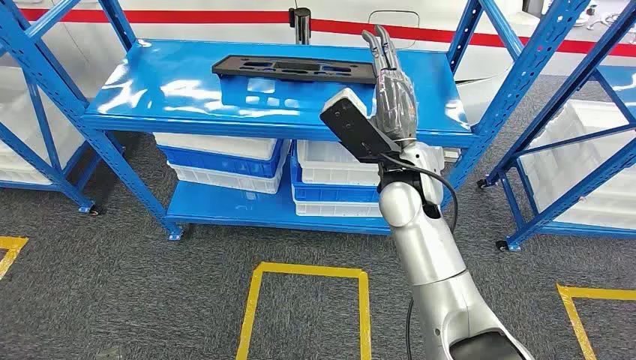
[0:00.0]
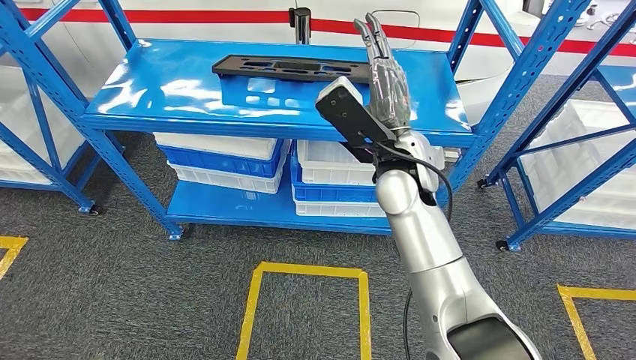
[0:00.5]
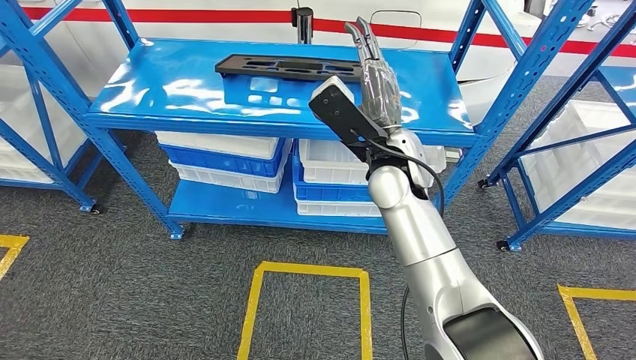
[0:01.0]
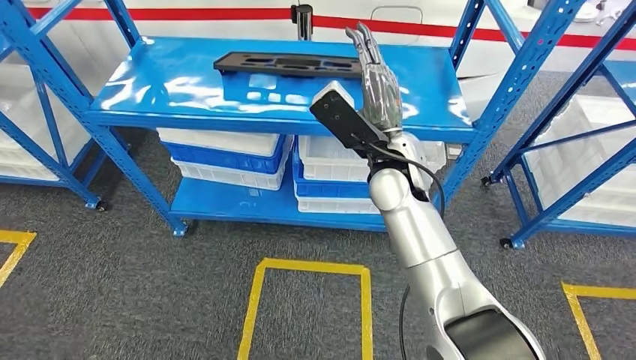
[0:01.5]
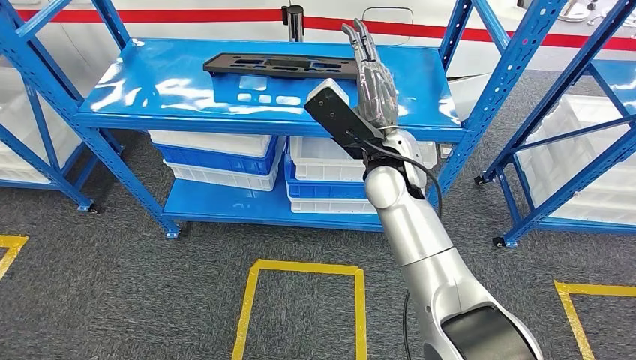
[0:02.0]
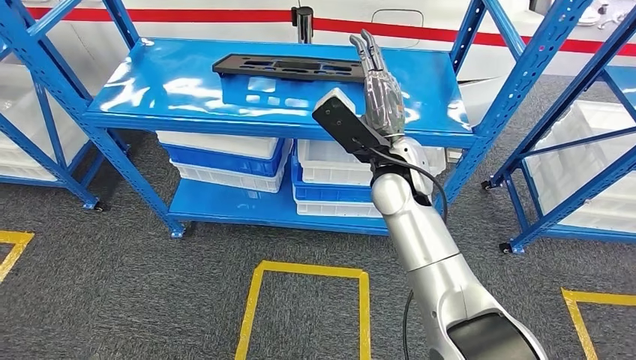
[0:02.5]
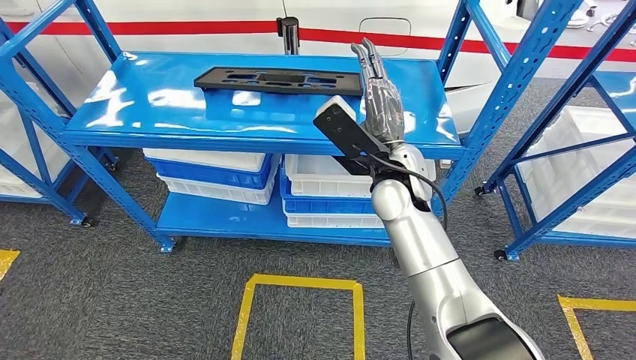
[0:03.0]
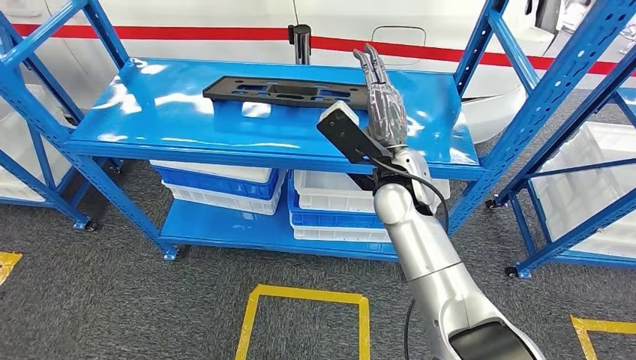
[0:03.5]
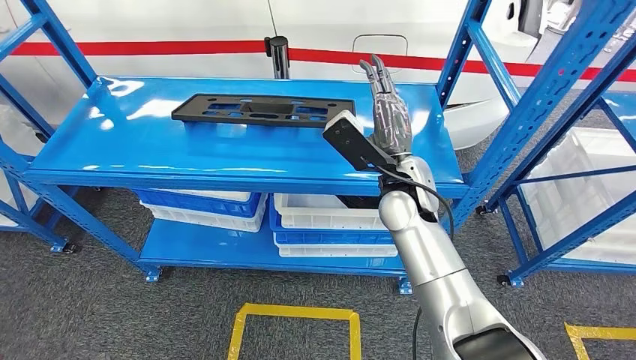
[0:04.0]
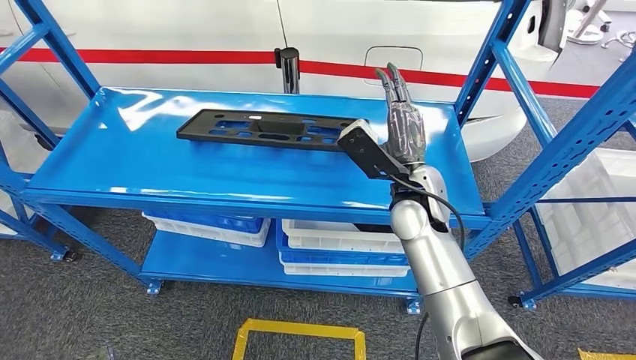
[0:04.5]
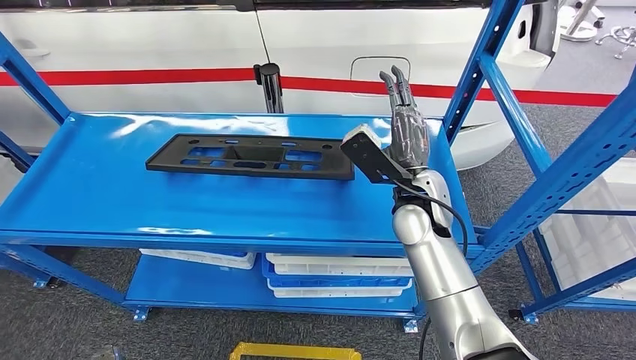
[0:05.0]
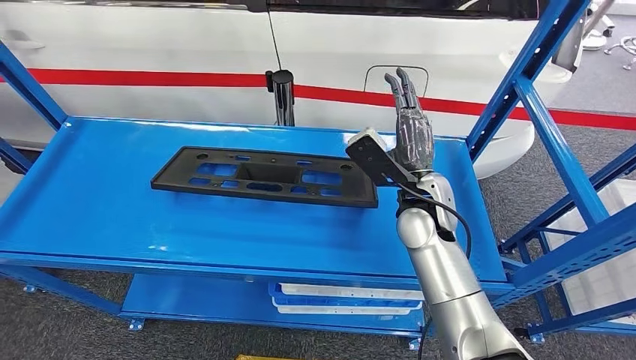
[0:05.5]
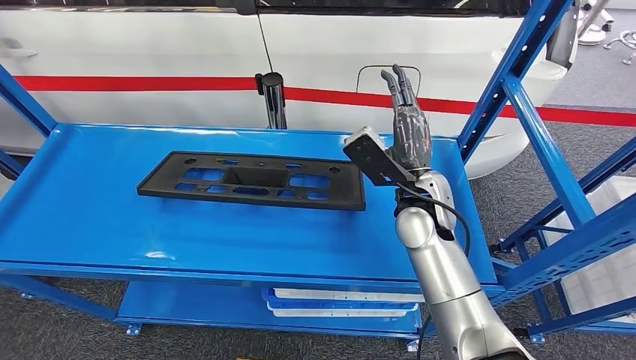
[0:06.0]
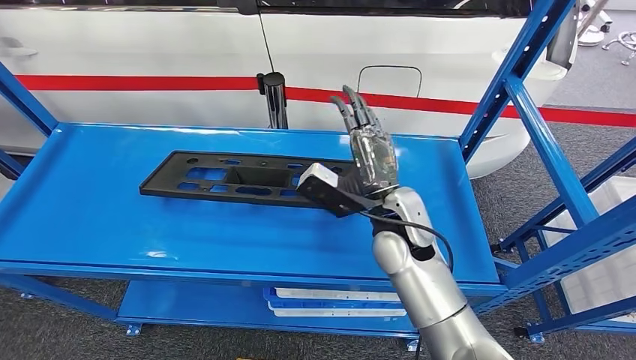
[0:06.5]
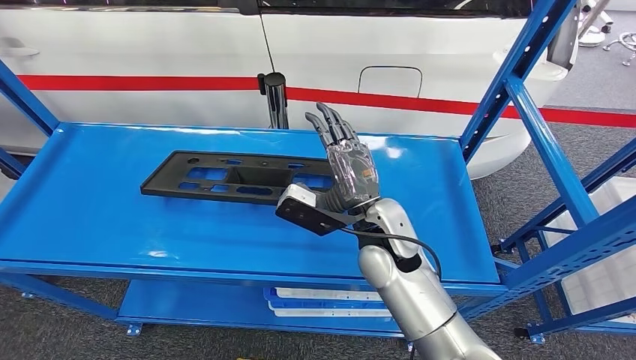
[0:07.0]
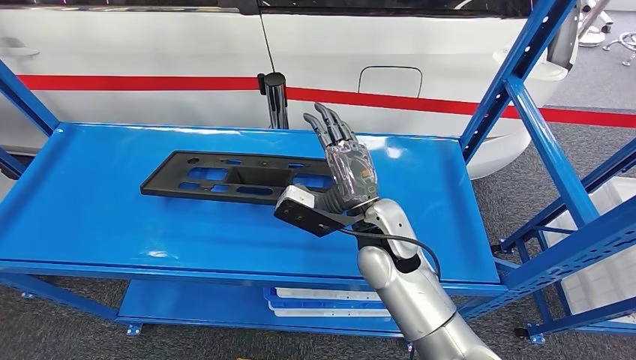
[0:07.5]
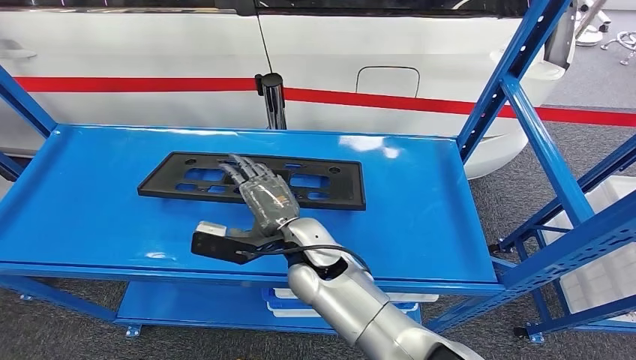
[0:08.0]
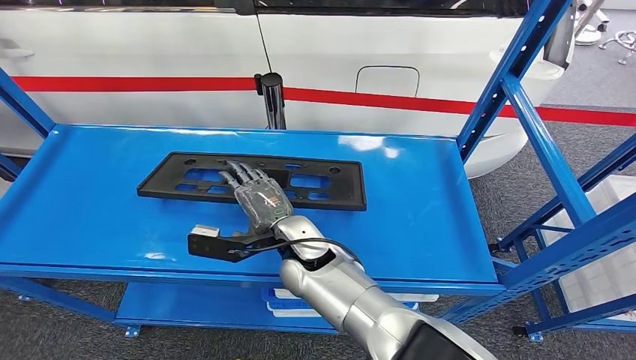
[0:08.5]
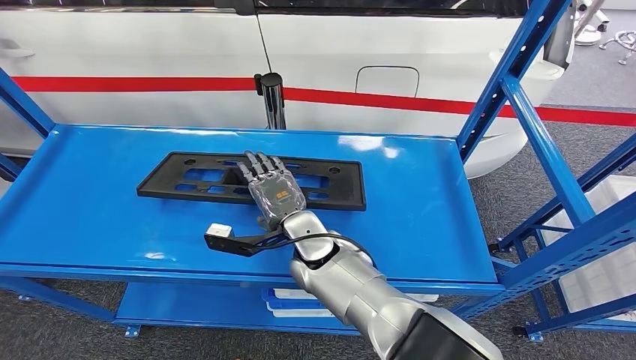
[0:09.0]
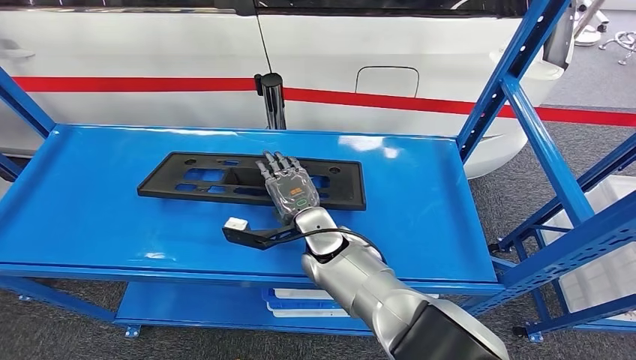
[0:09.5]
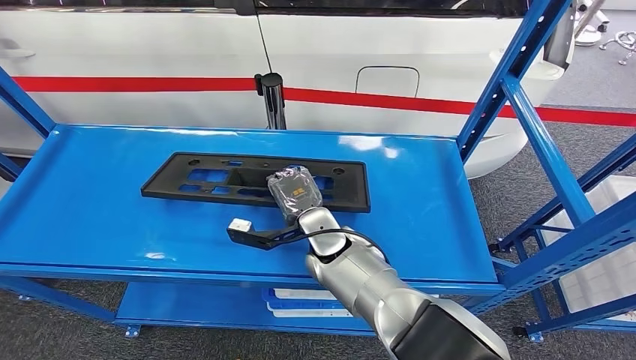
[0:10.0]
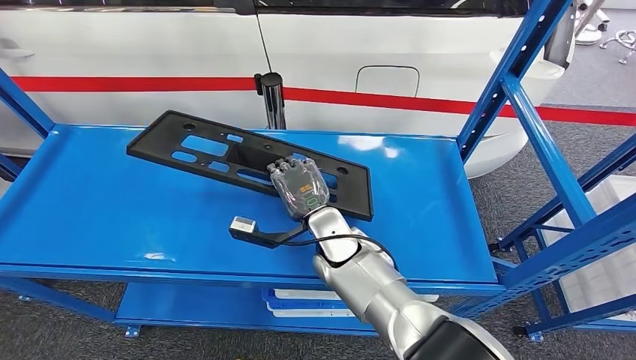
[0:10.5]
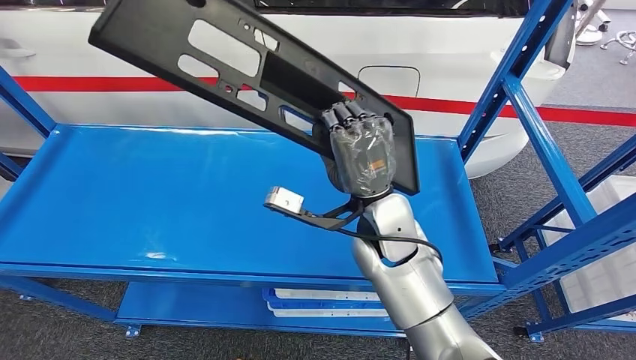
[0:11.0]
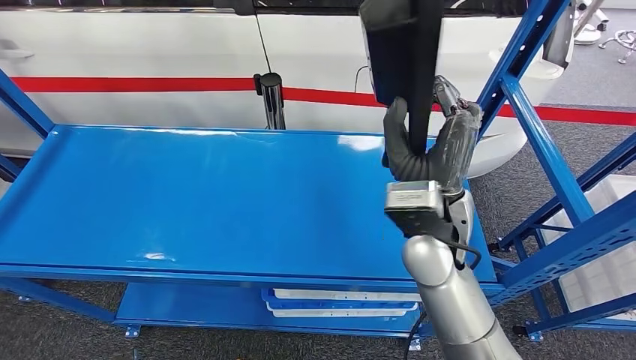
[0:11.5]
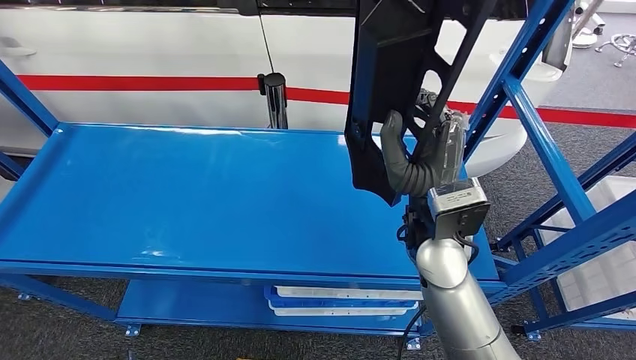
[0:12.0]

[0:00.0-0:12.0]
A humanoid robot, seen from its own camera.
0:06.0 to 0:08.0: The right hand is displaced to the left by approximately 15 cm.
0:08.0 to 0:10.0: The right hand moves roughly 5 cm.

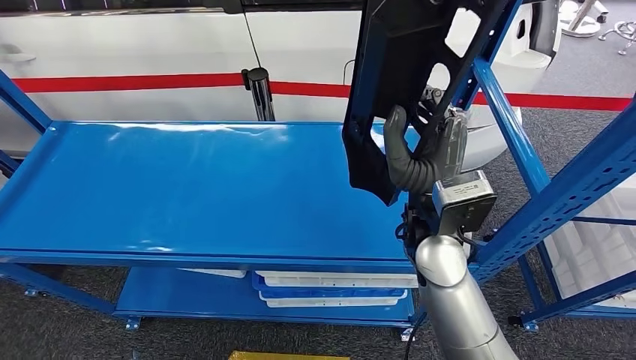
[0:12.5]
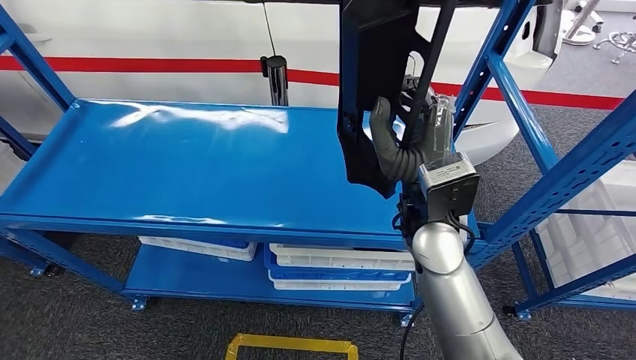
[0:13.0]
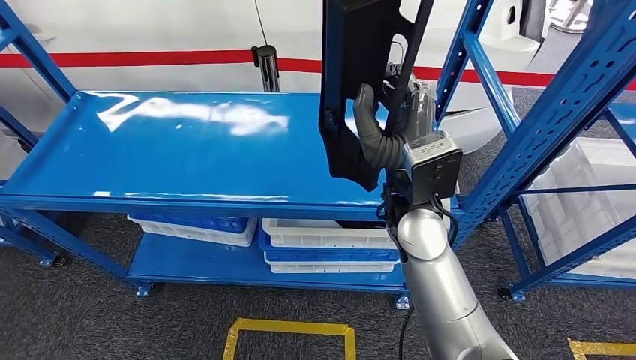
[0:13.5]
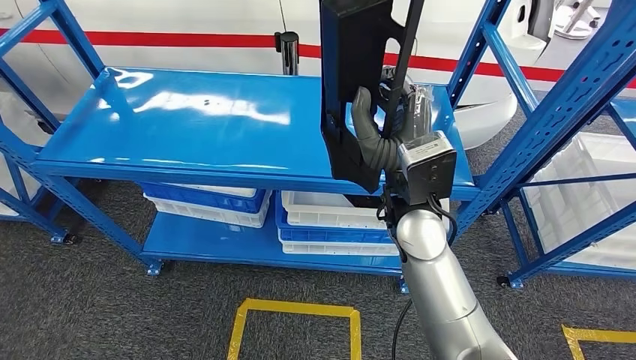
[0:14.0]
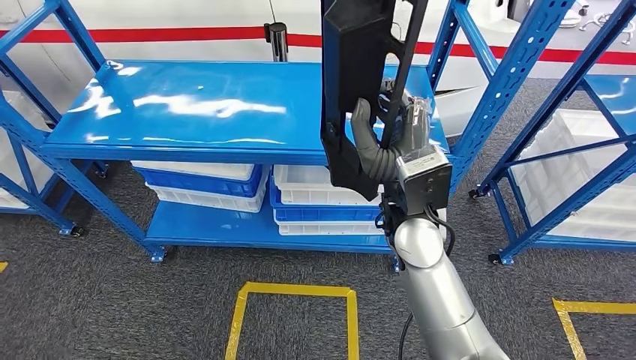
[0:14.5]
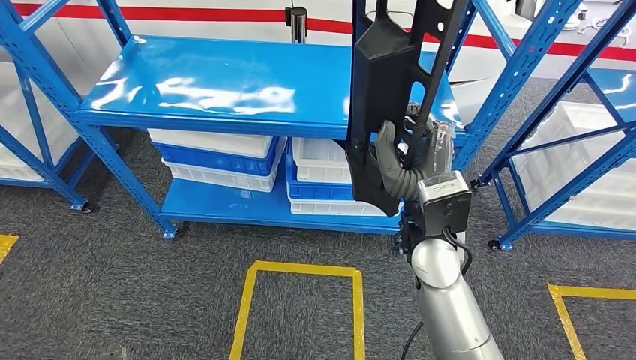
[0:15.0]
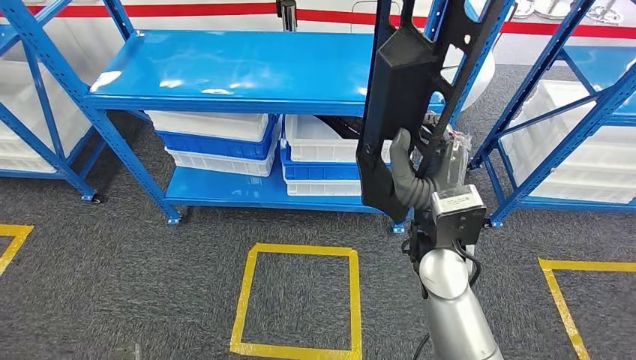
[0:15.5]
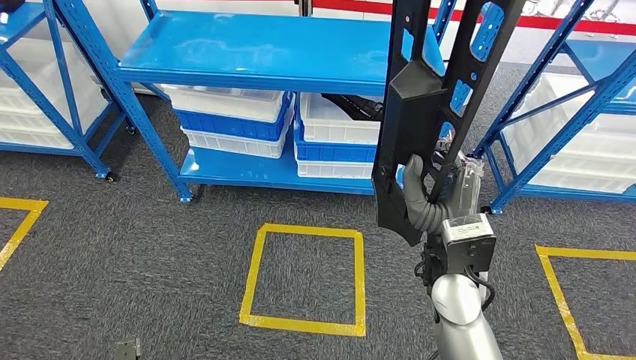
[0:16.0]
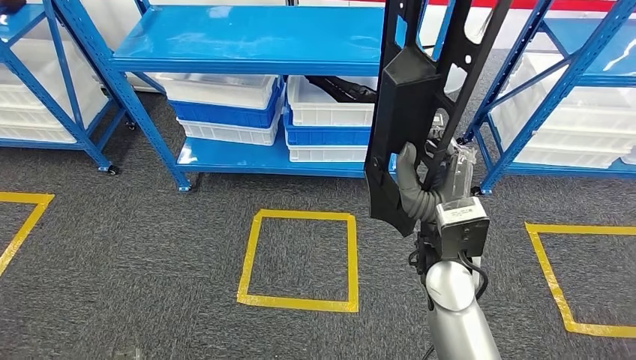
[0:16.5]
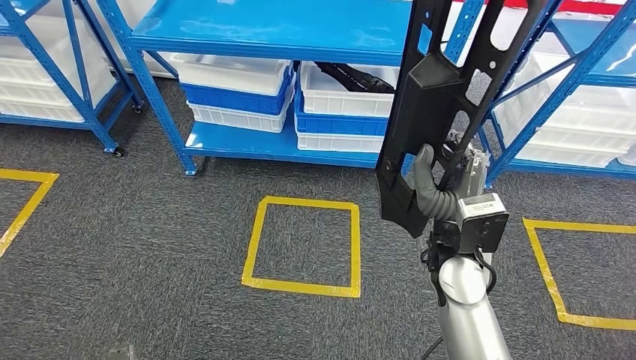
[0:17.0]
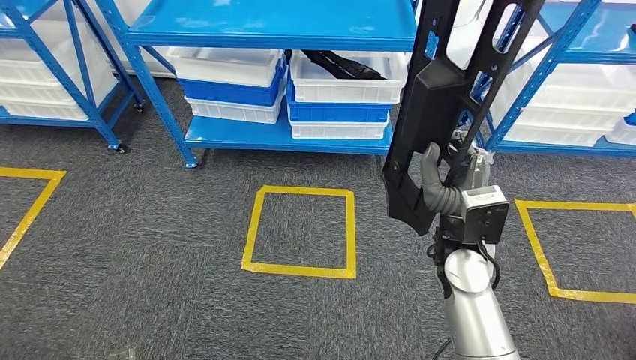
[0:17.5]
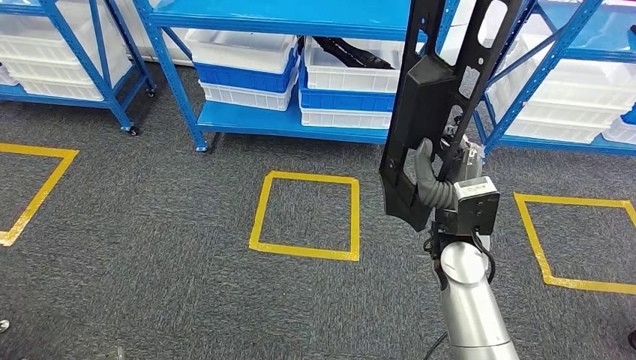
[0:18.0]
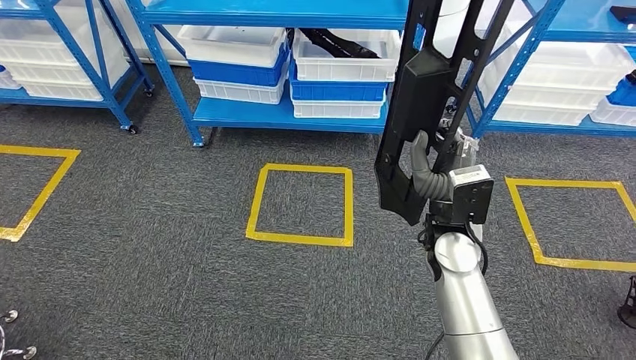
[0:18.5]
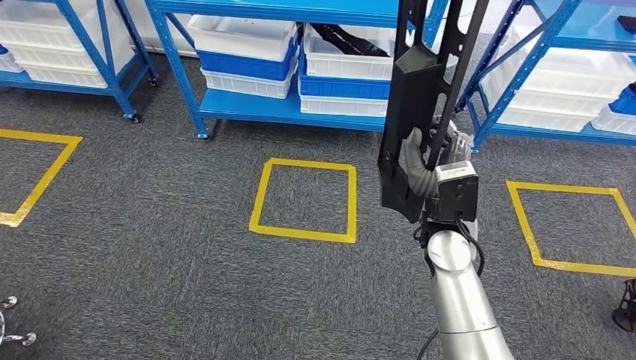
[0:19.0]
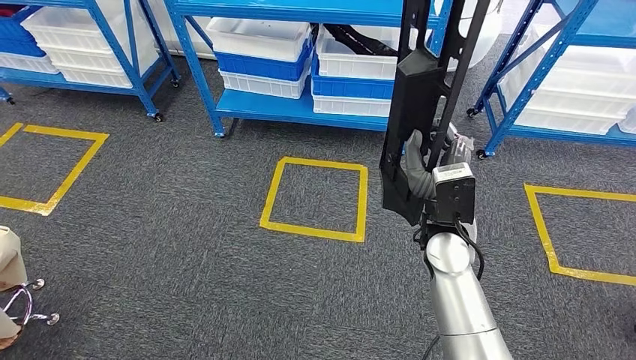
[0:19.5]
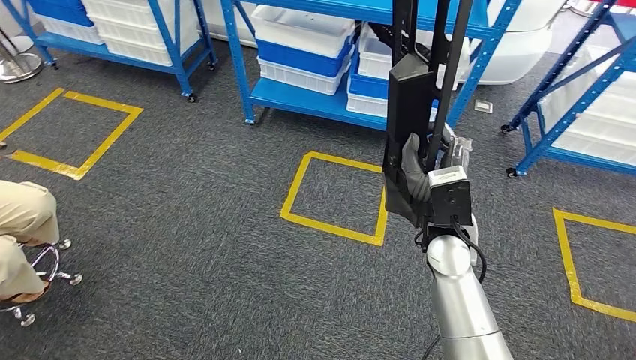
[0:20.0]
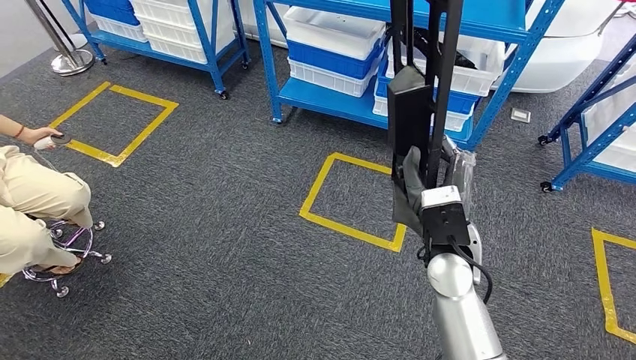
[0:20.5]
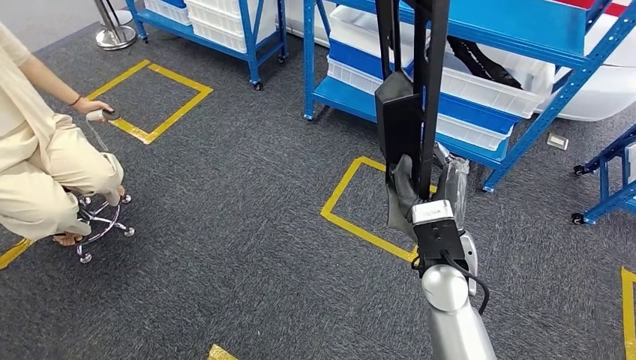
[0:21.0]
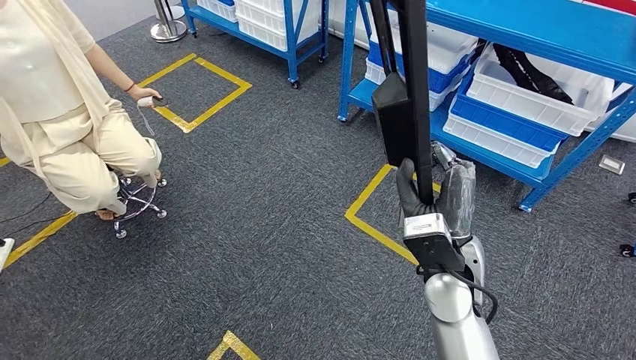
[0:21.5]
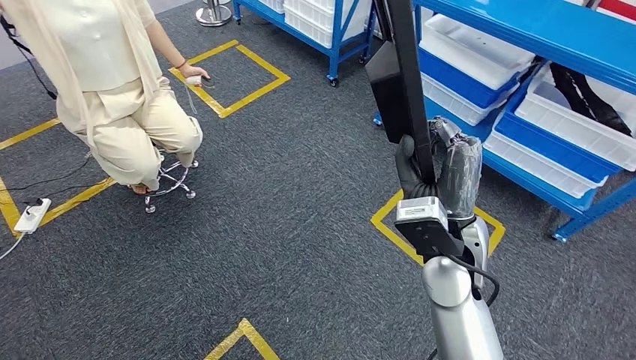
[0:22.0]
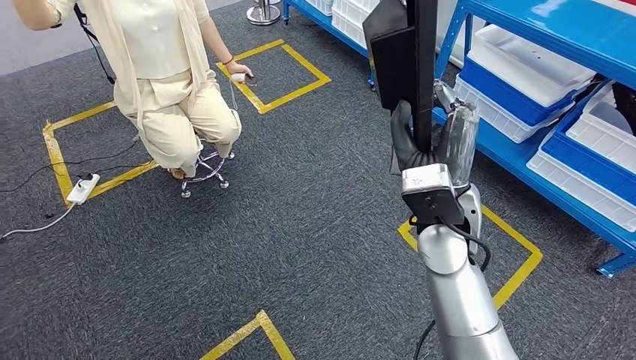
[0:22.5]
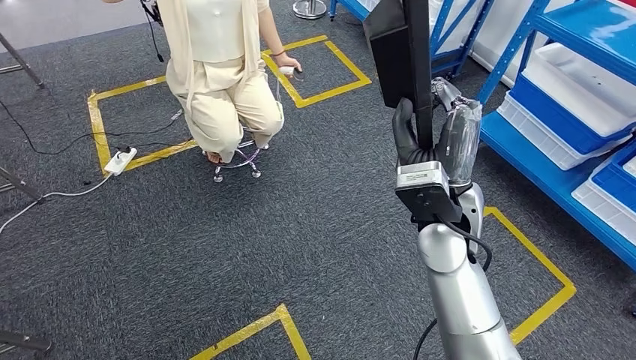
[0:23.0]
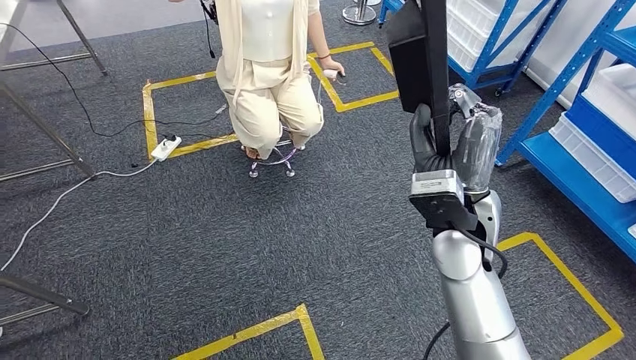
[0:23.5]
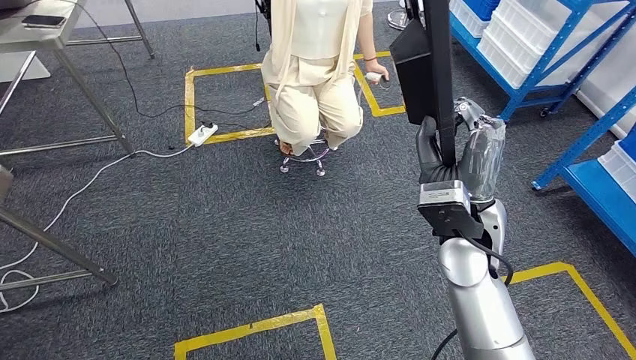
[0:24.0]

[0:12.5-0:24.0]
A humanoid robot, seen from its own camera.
Step, 0:12.5 to 0:14.5: Pick up the large material from the shelf.
